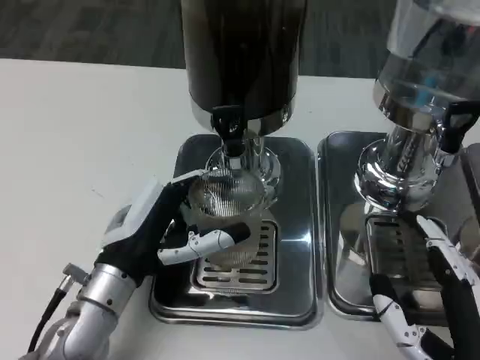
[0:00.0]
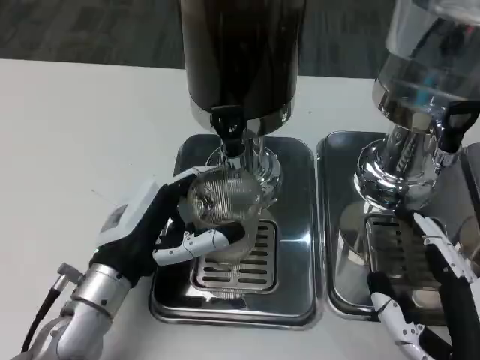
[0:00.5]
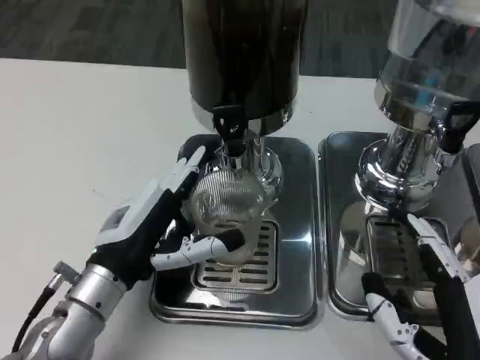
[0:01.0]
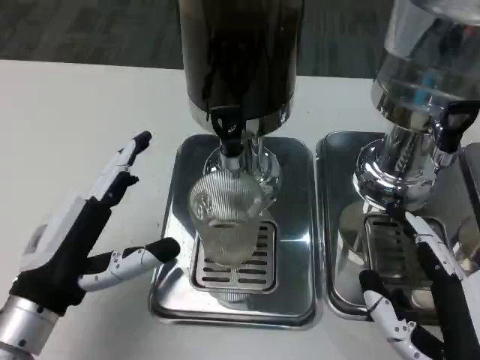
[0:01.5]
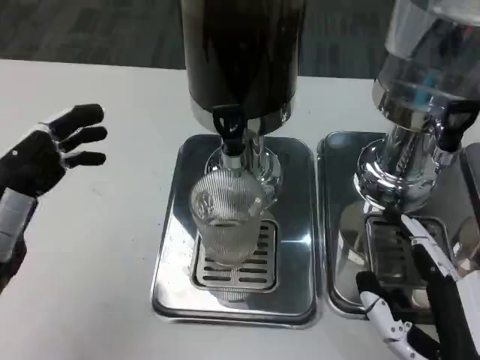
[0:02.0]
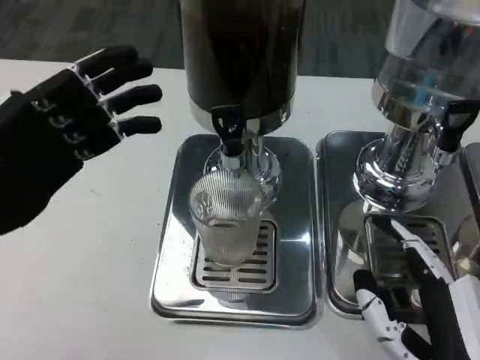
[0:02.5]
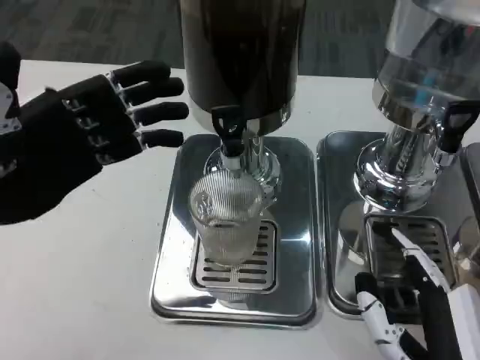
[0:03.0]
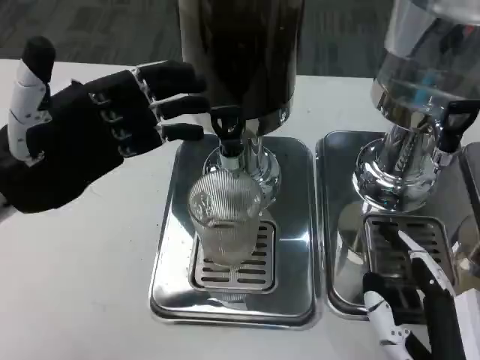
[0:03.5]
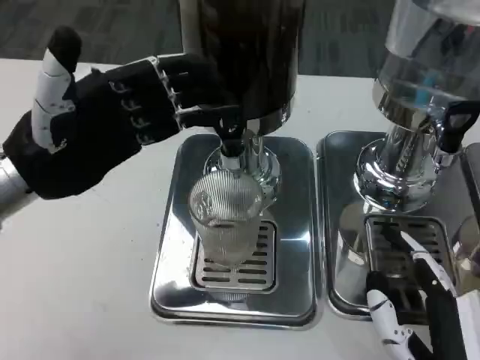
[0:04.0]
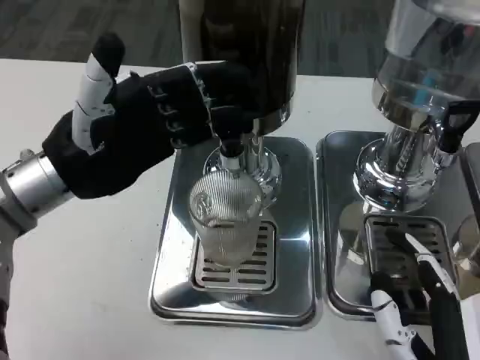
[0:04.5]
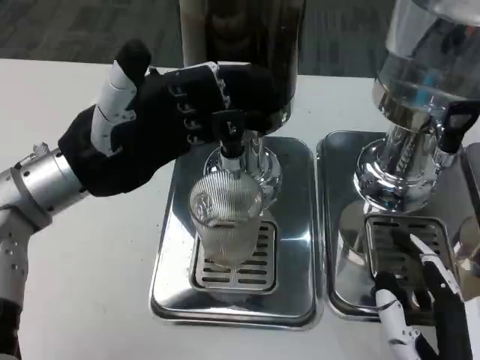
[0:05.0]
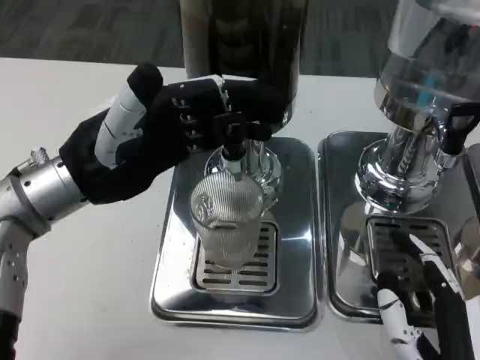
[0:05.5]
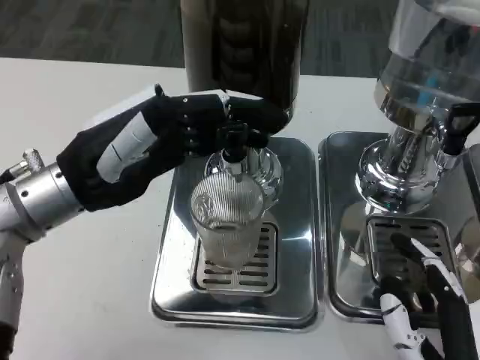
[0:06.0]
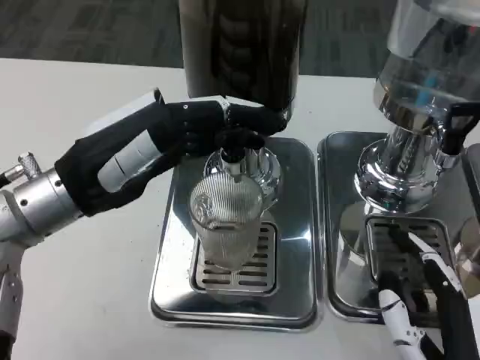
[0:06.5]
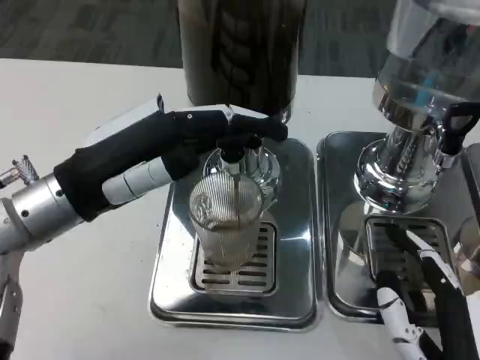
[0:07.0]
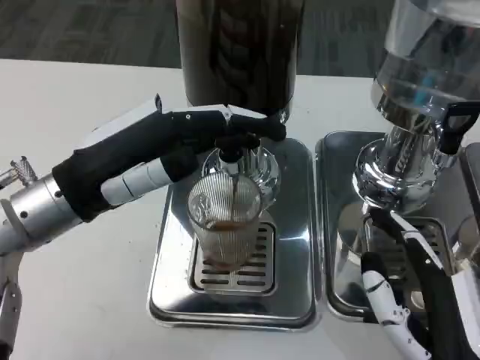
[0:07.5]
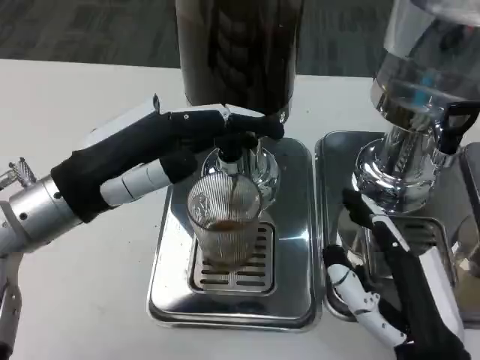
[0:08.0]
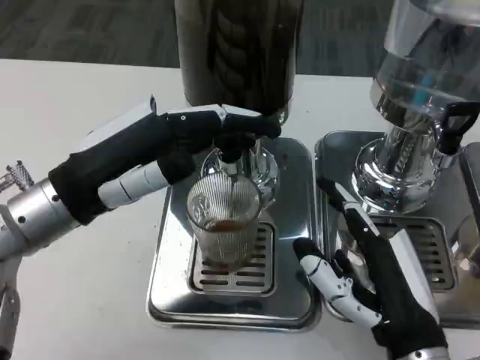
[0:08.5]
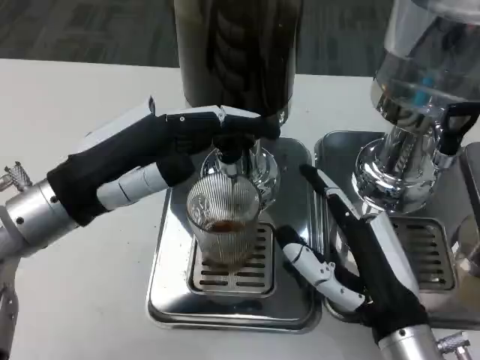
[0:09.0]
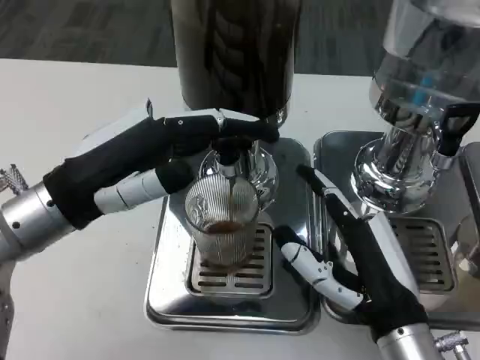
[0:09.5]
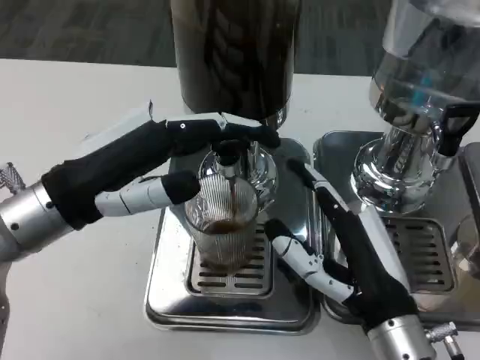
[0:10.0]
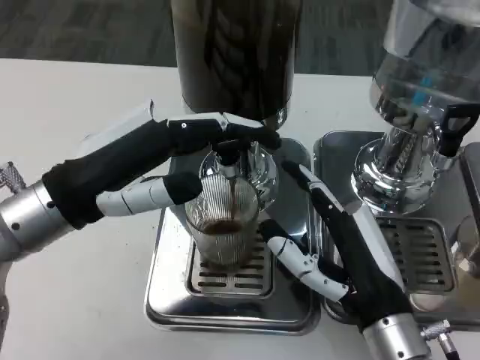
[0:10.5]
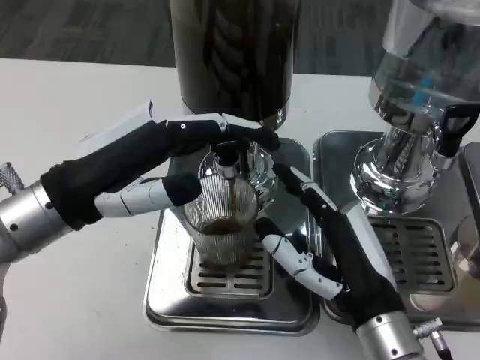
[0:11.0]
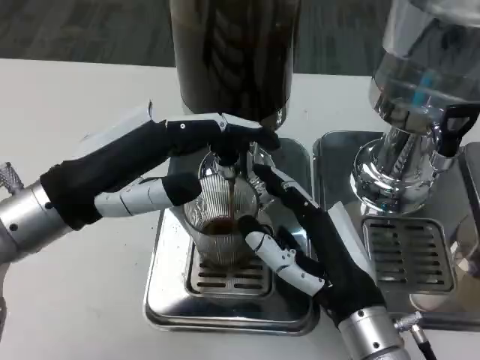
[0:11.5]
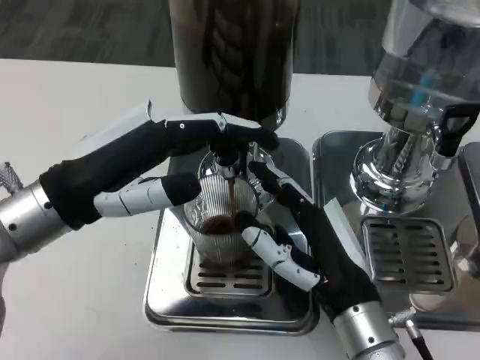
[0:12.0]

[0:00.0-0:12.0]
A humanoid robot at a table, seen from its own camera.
Task of the whole recording: Grasp the cup under the faucet to collect the drink, then remove the cup.
0:00.0 to 0:02.0: The left hand moves to the left, upward and backward, roughly 15 cm.
0:02.0 to 0:04.0: The left hand travels forward and upward by some 10 cm.
0:08.0 to 0:10.0: The right hand shifts by some 5 cm.
0:10.0 to 0:12.0: The hands stay close to where they were, moving slightly.

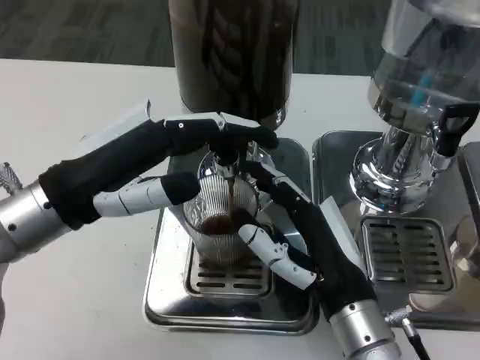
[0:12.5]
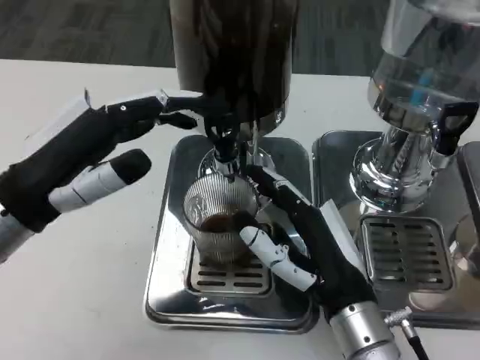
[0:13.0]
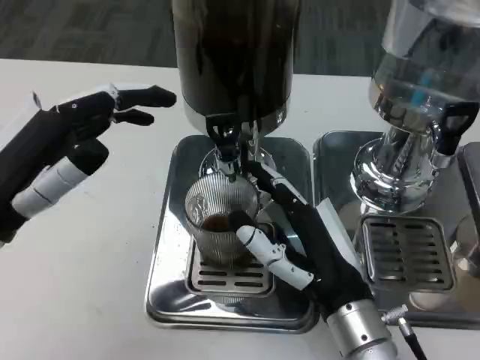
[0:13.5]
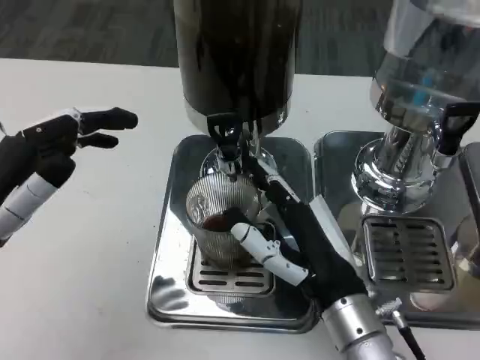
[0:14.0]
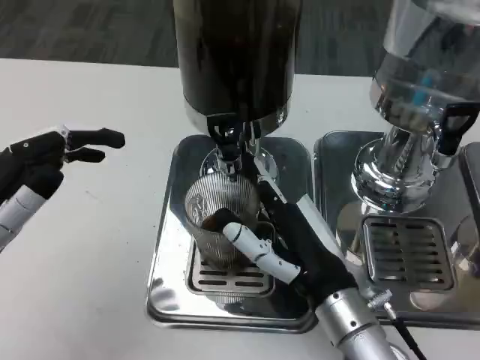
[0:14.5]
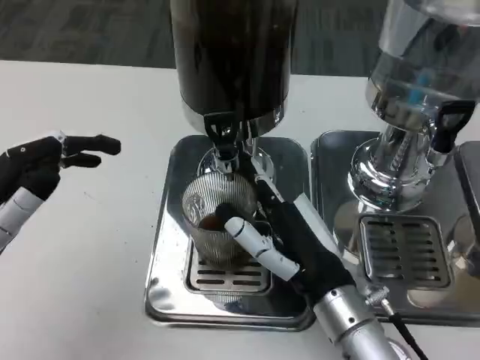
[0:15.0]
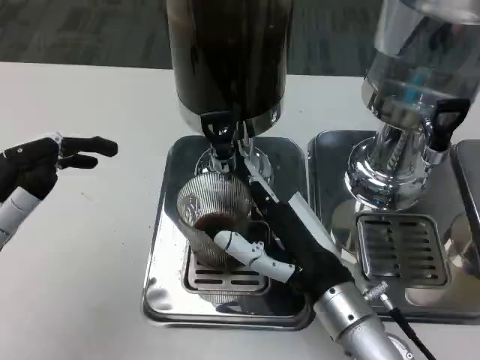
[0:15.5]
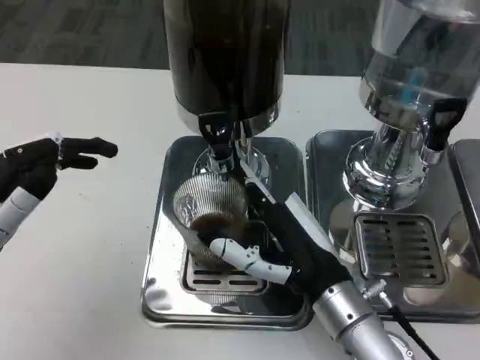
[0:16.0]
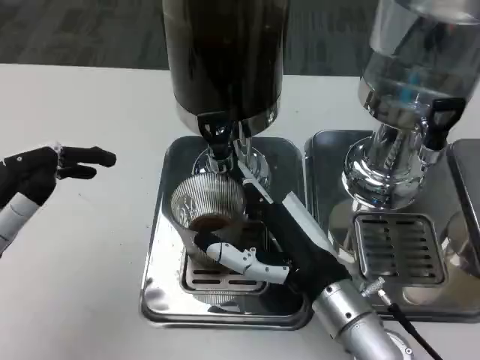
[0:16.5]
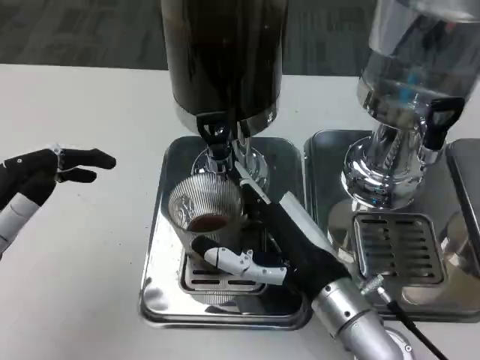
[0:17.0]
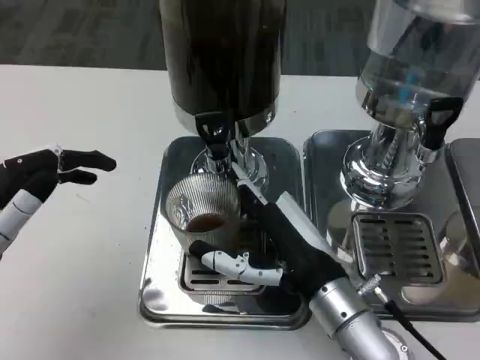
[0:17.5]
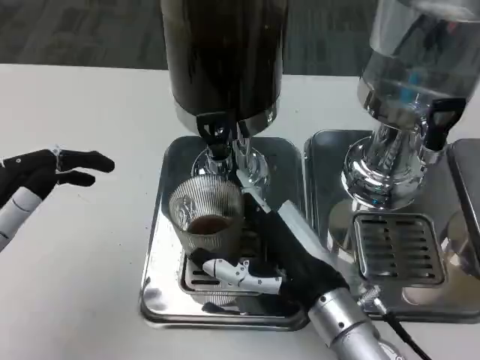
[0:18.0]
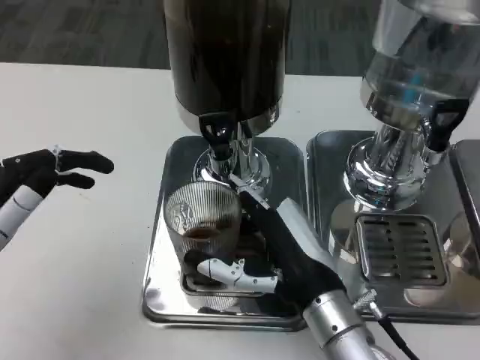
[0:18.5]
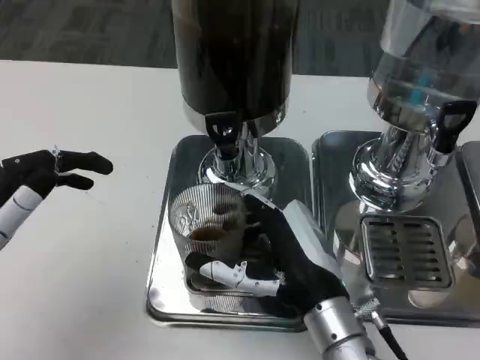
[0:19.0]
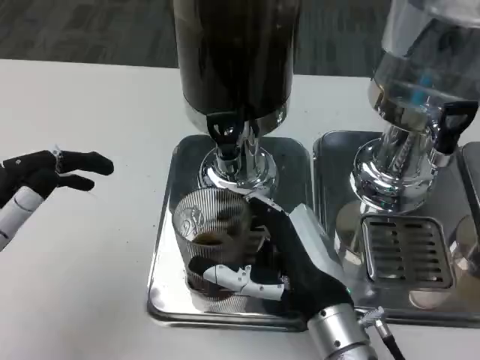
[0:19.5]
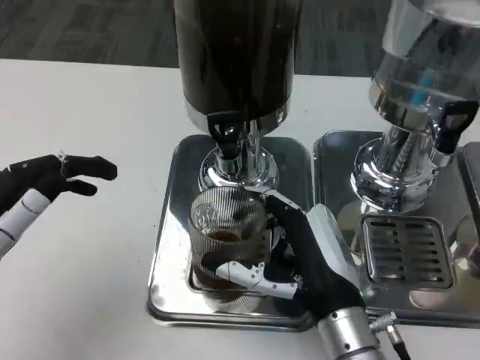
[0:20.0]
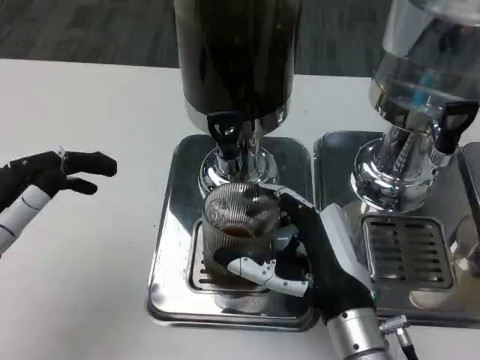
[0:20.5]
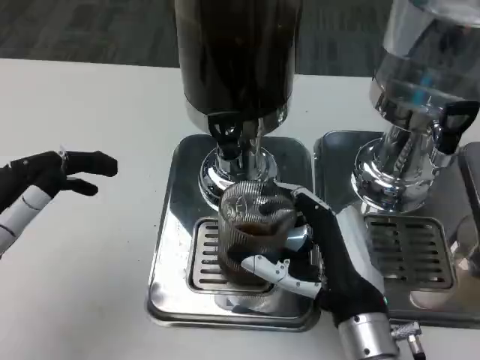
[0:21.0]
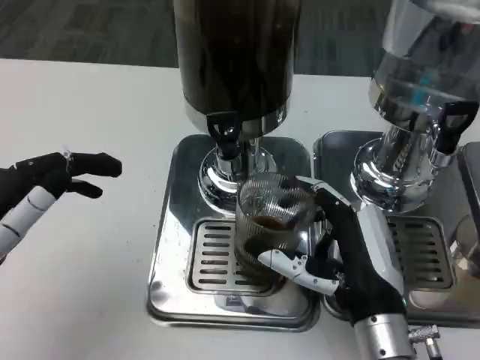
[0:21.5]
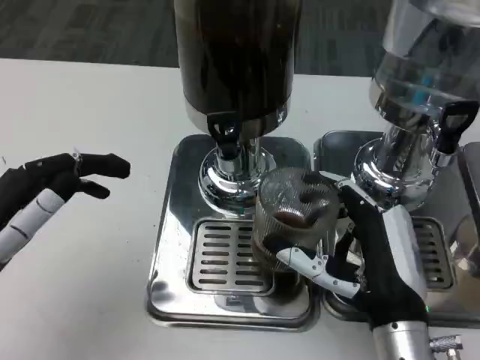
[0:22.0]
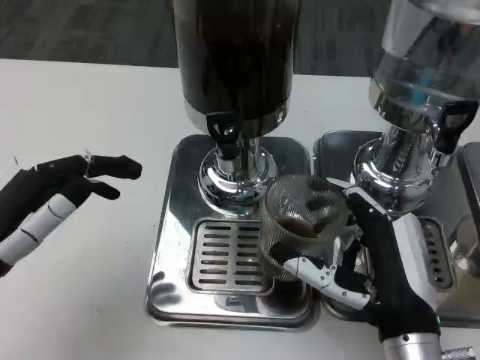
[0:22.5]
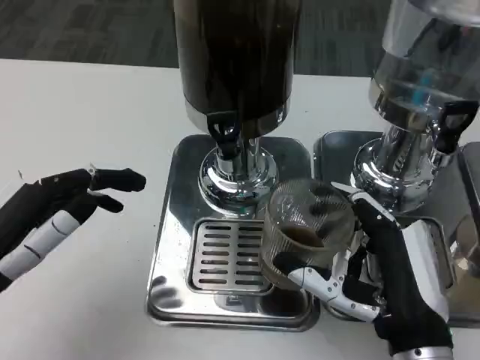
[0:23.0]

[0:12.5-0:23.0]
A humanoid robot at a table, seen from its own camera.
Task of the whole recording: Grasp the cup under the faucet to collect the drink, then remove the cup.
0:12.5 to 0:14.5: The left hand heads backward and to the left, covering about 10 cm.
0:21.0 to 0:23.0: The right hand changes place by some 5 cm.

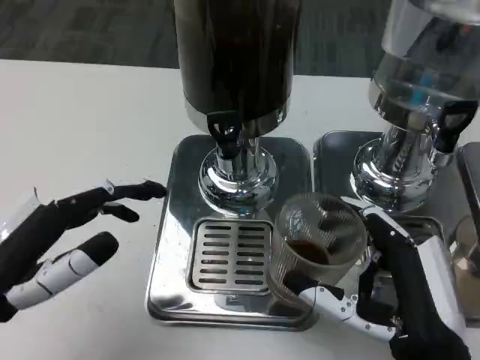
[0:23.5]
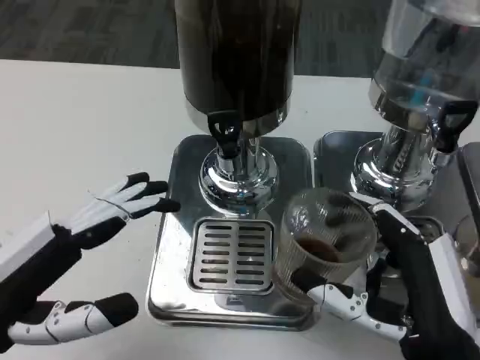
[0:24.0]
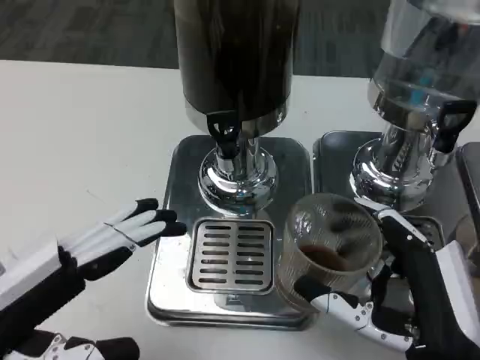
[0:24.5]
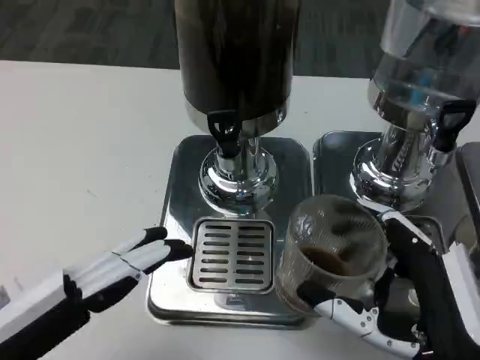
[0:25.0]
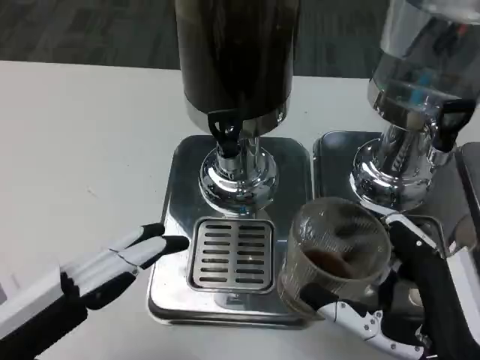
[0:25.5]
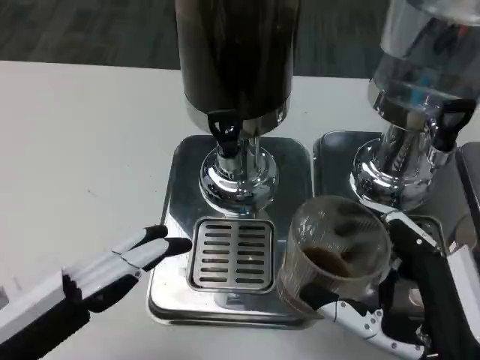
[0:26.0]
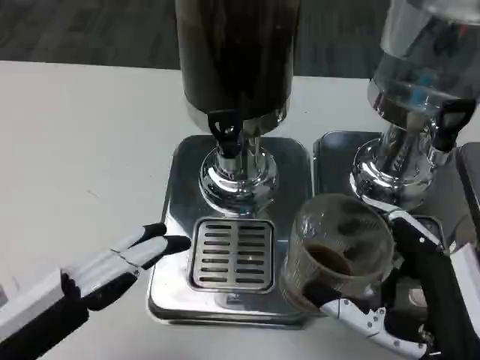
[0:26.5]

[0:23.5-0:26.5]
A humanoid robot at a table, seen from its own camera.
Task of the whole recording: Grasp the cup under the faucet to collect the drink, then remove the cup.
0:25.0 to 0:26.5: Neither hand changes place.
